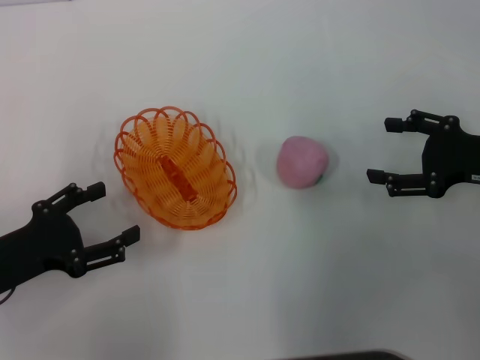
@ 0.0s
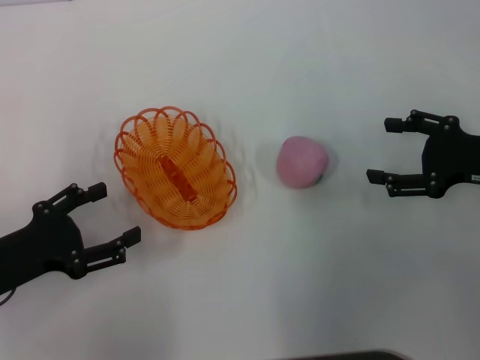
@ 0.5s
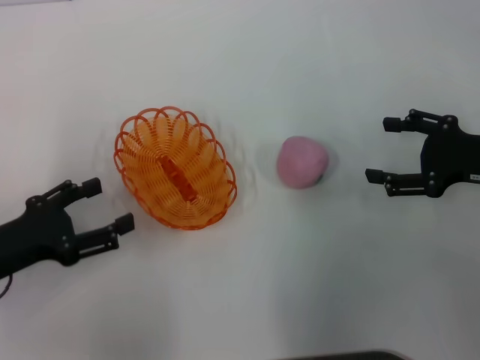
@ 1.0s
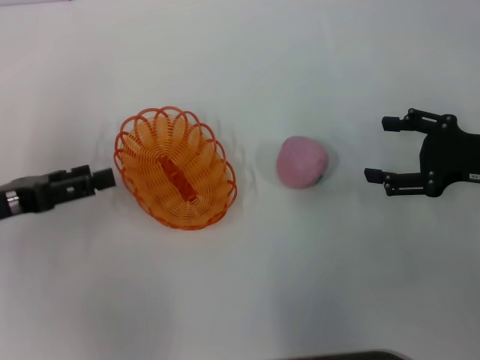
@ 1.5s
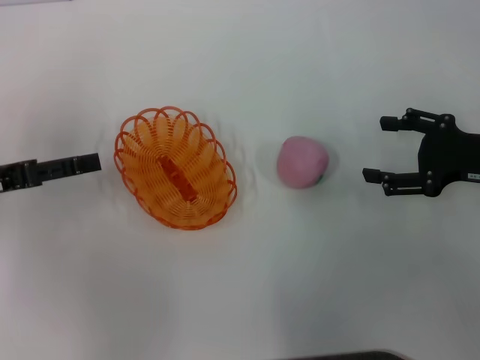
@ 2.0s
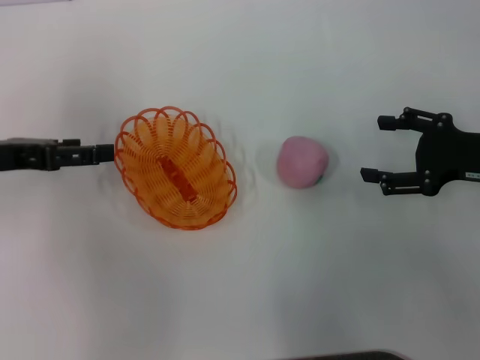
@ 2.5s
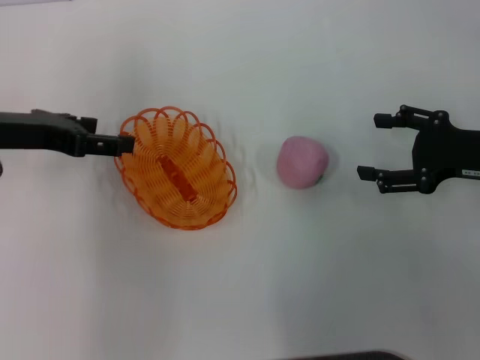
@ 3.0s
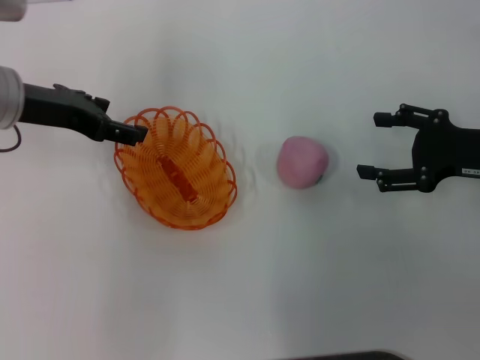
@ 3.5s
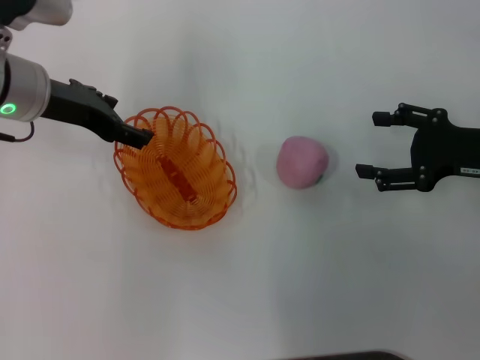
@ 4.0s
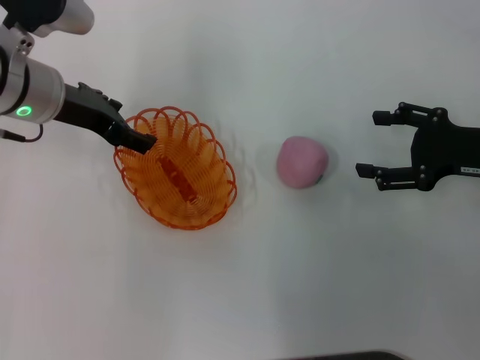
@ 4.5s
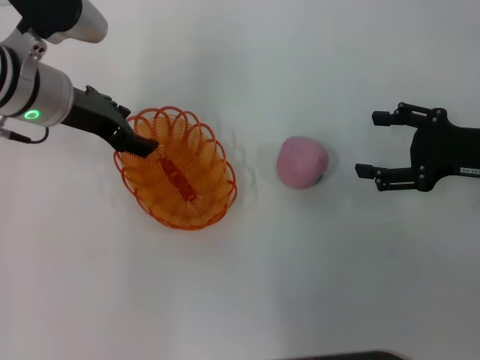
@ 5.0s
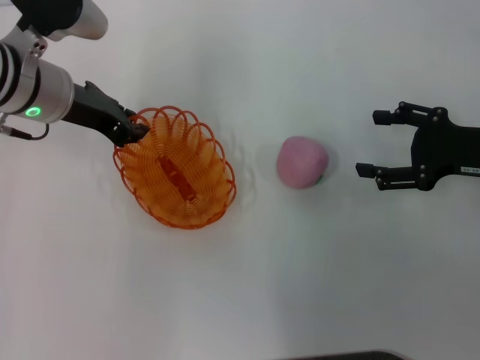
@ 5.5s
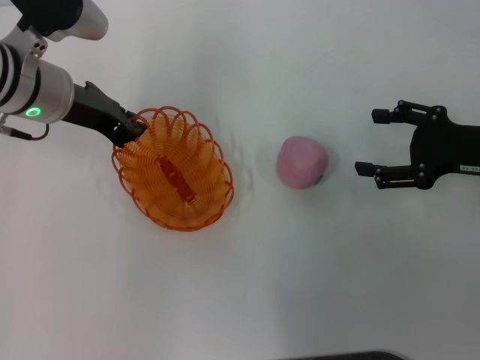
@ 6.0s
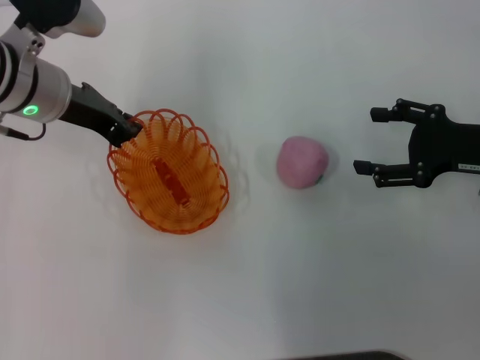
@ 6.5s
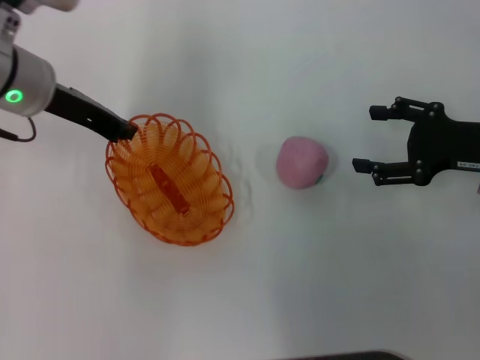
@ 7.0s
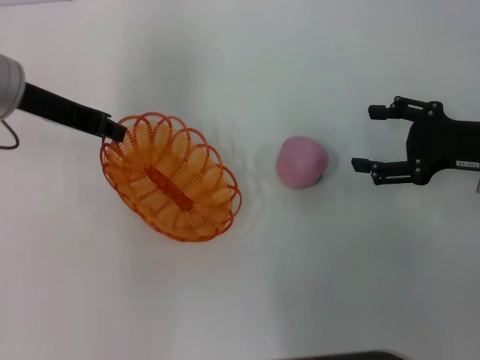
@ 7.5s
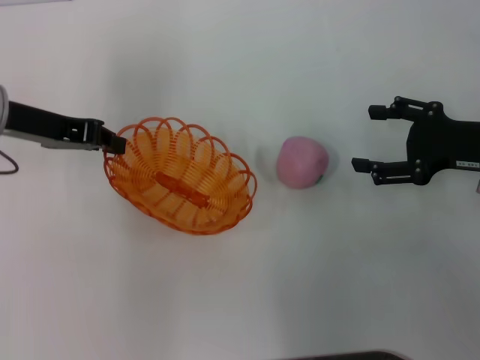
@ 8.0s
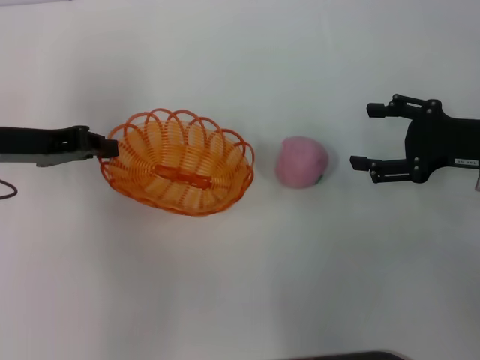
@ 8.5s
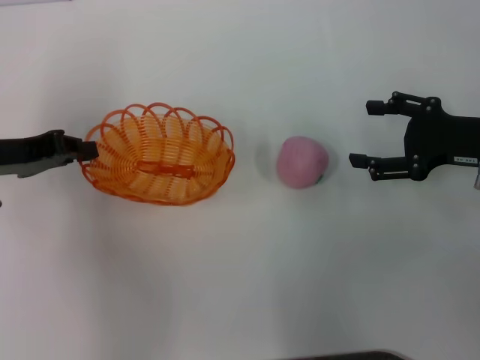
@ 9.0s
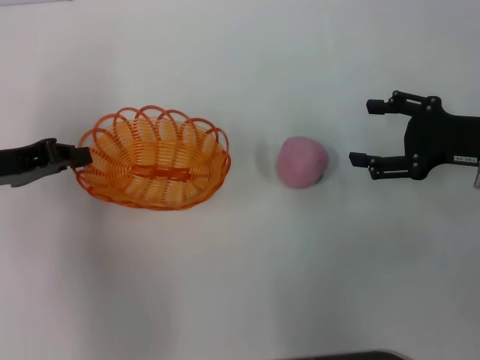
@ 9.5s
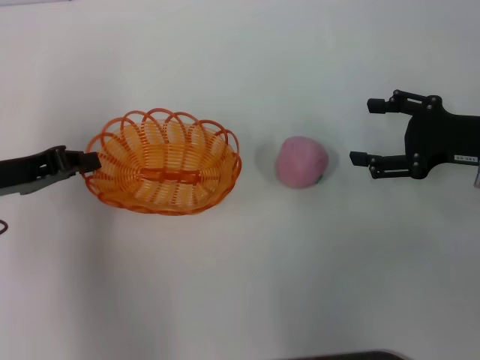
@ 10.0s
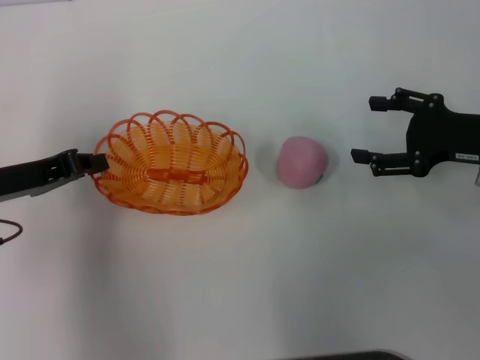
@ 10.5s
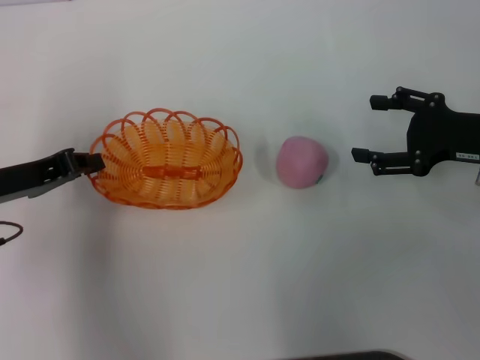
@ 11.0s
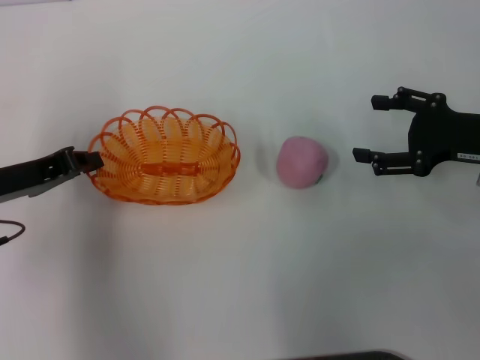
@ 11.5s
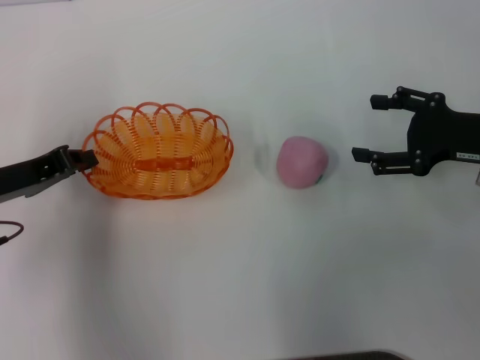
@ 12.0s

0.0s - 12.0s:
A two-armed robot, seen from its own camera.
Step, 0.0s - 7.5s: Pick up the basket with the left gripper.
0.0s - 2.0s: The left gripper is displaced forward and upward by about 10 cm.
2.0s - 4.0s: The left gripper heads to the right and forward, covering approximately 15 cm.
4.0s - 6.0s: The left gripper closes up.
6.0s - 8.0s: The left gripper moves to the left, about 5 cm.
8.0s - 10.0s: The left gripper travels backward by roughly 10 cm.
10.0s - 12.0s: There are only small adjustments of the grippers.

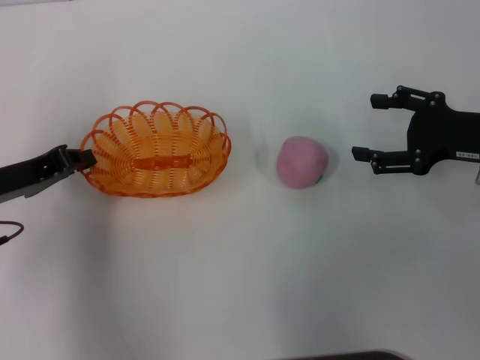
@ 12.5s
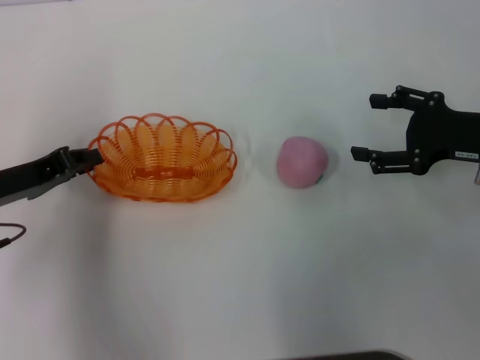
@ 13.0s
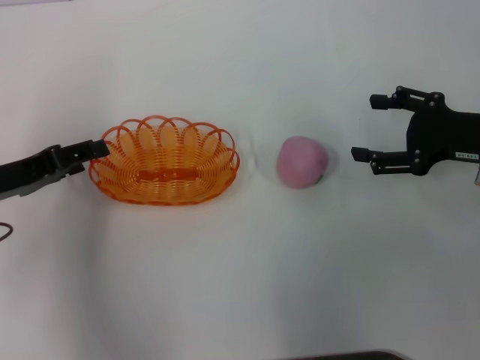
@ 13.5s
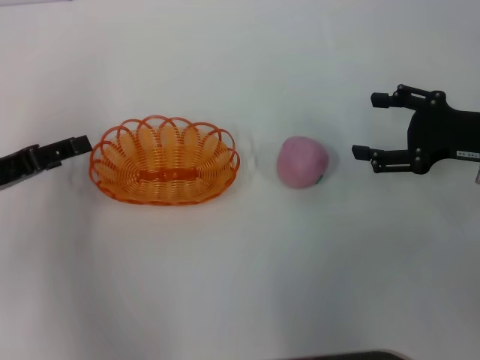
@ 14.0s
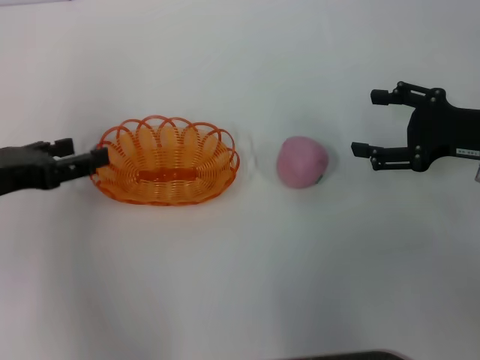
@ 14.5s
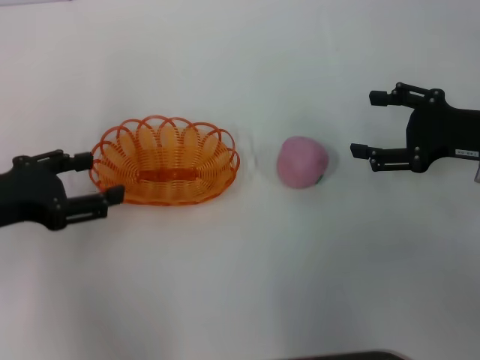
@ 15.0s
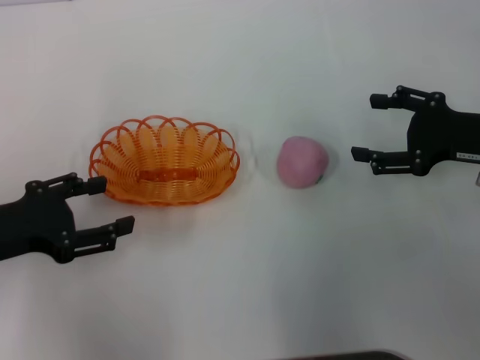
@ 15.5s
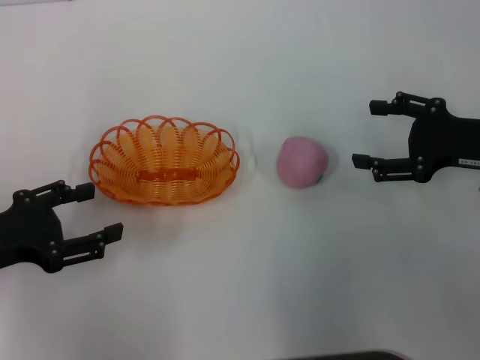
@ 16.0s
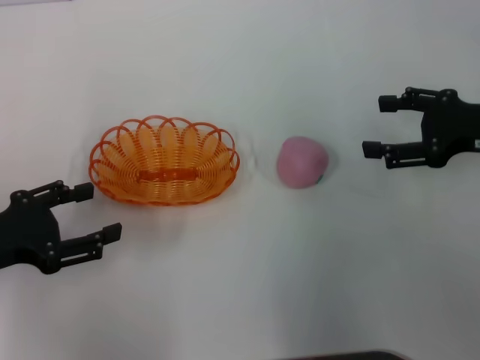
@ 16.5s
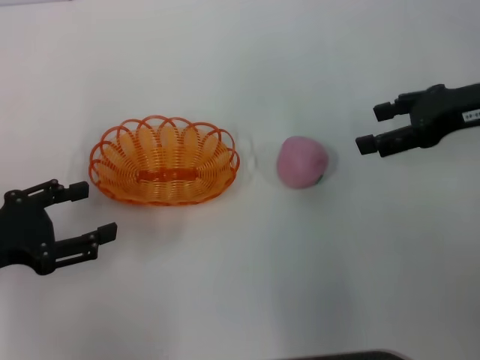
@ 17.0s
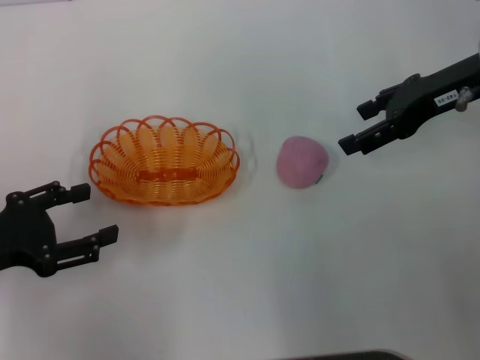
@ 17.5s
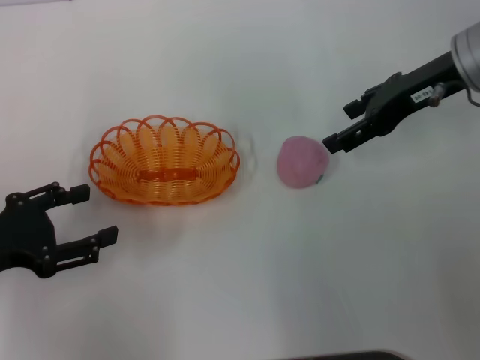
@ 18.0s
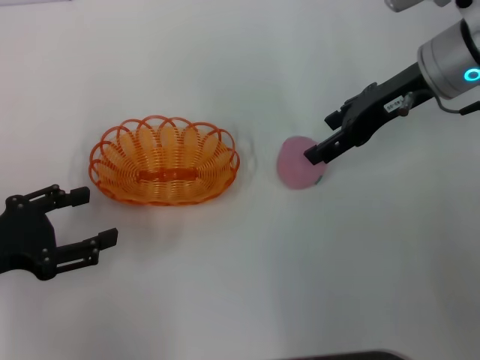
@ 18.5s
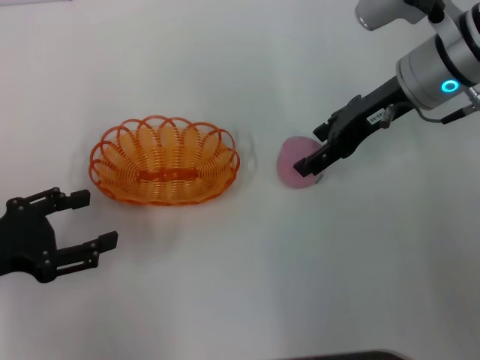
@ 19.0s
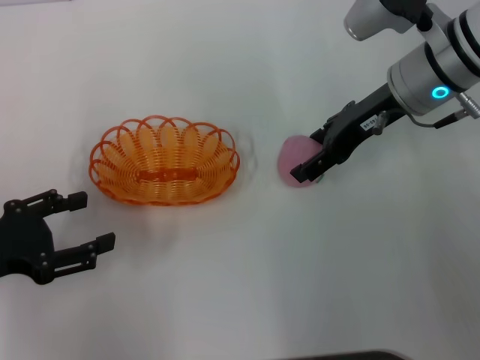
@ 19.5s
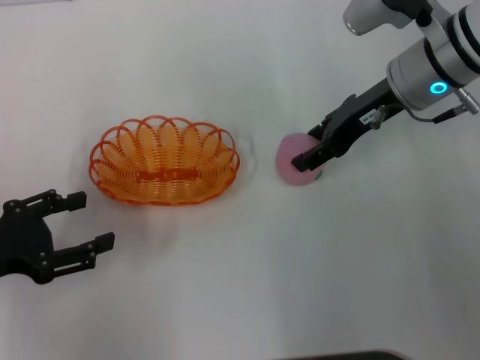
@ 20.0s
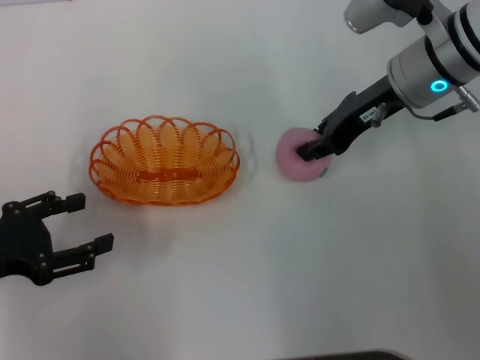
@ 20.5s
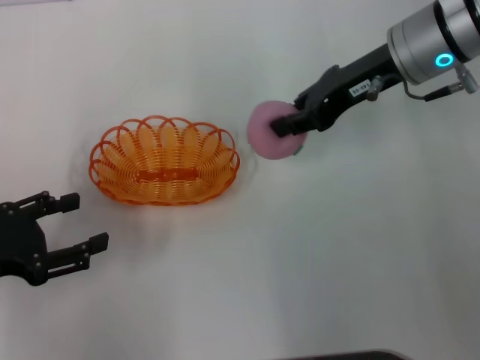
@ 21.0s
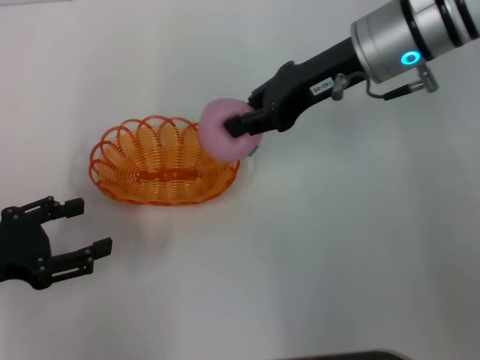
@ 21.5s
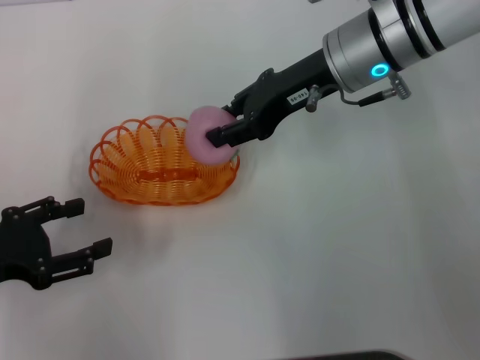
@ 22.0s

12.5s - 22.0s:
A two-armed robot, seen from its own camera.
Step, 14.0s - 21.0s: Pick up the peach with the right gripper.
12.5s - 14.5s: The left gripper opens its fingers.
14.5s - 16.5s: The left gripper moves approximately 5 cm.
16.5s - 18.0s: The right gripper travels to the left, forward and upward by approximately 10 cm.
18.0s - 20.0s: The right gripper ends up roughly 5 cm from where it was.
20.0s - 22.0s: The right gripper goes some 5 cm to the left, and closes.

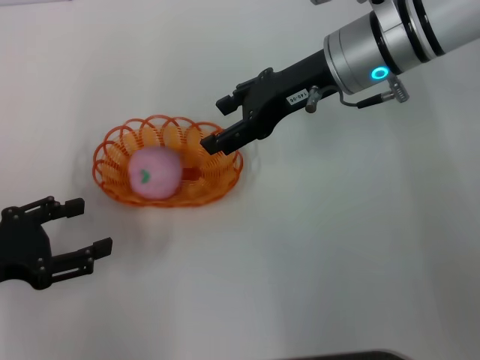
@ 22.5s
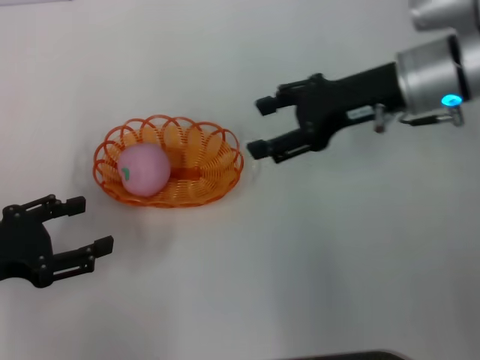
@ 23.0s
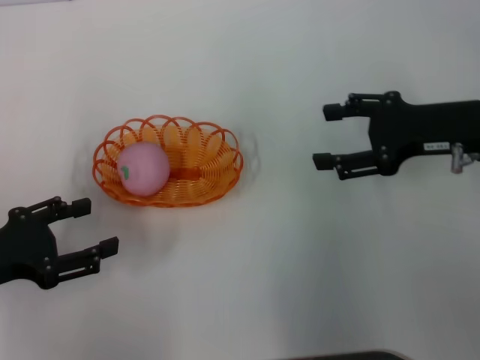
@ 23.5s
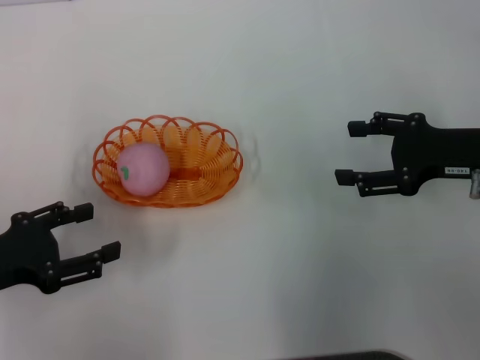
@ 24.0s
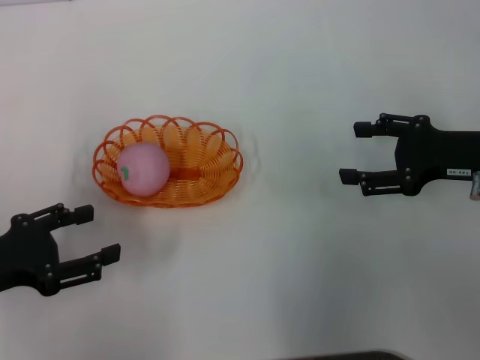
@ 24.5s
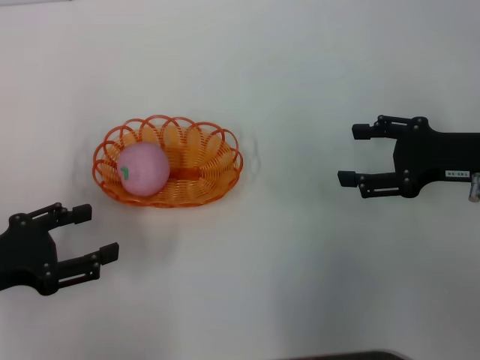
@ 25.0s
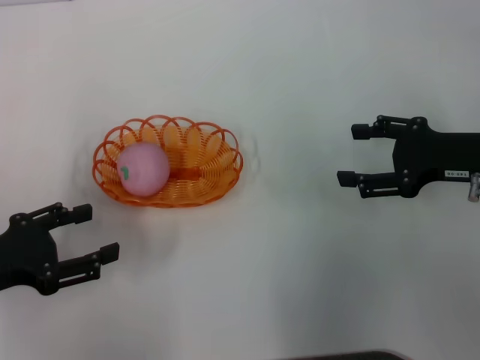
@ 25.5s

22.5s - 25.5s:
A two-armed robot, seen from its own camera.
22.5s - 24.0s: The right gripper travels to the right, backward and downward by approximately 20 cm.
24.0s - 25.5s: Neither gripper changes place.

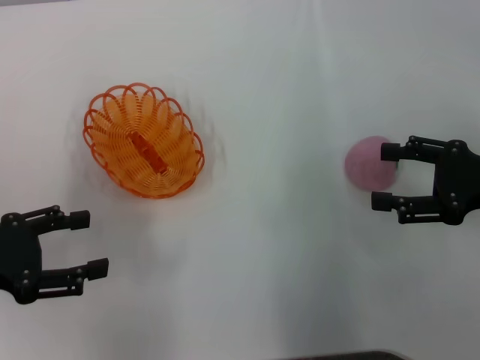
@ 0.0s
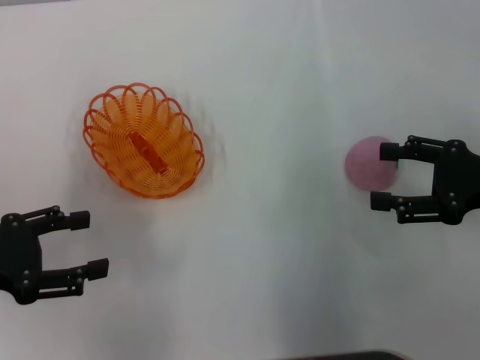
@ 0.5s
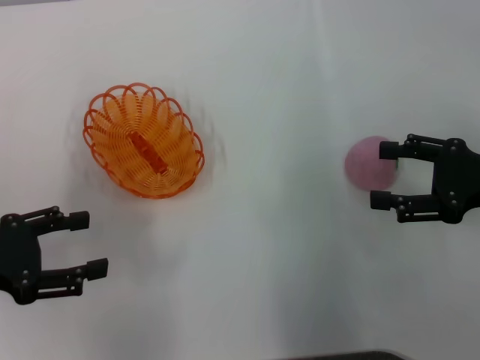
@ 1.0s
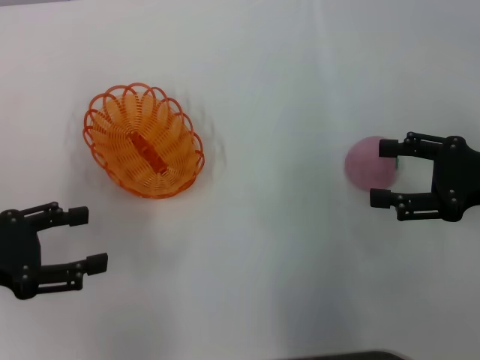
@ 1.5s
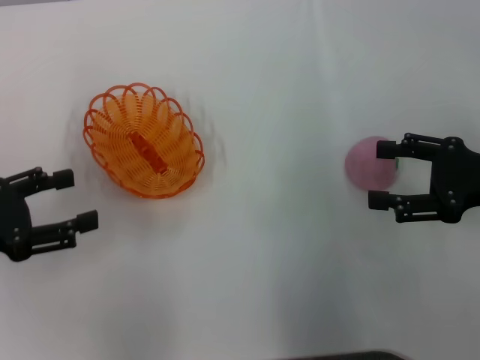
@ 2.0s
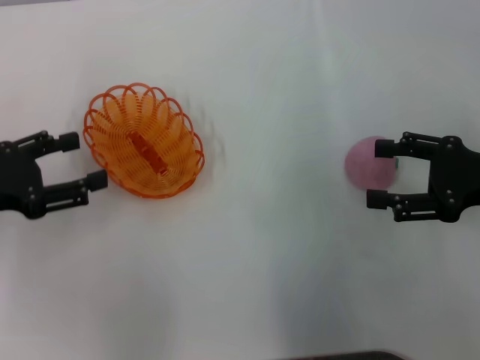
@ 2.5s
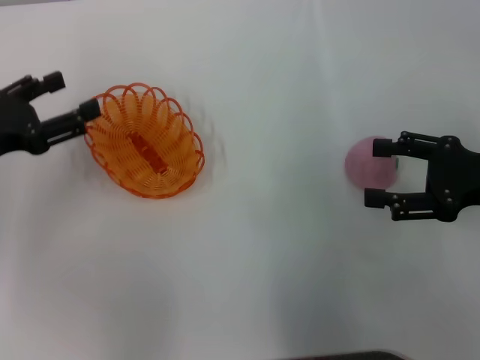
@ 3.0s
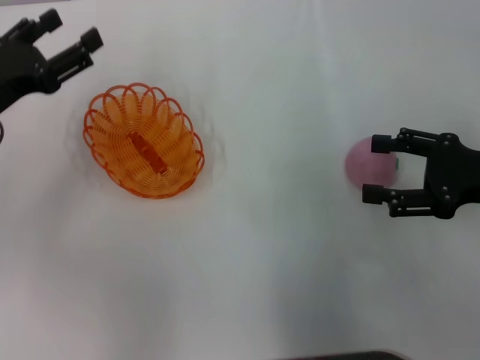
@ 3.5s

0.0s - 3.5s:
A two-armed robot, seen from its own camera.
0.0s - 2.0s: The grippers move only a little.
2.0s - 3.5s: The left gripper is displaced forward by some 10 cm.
